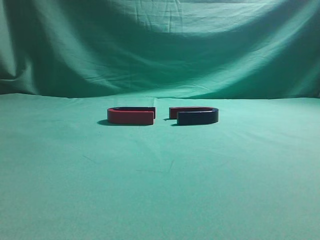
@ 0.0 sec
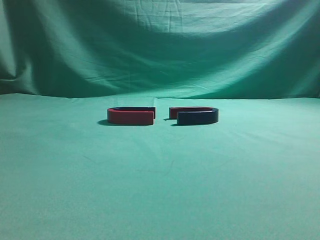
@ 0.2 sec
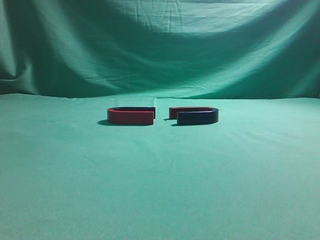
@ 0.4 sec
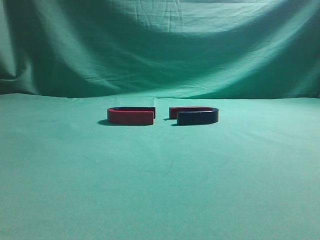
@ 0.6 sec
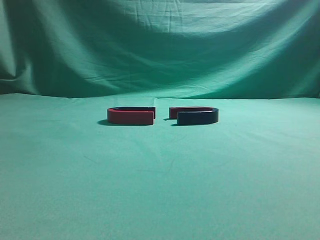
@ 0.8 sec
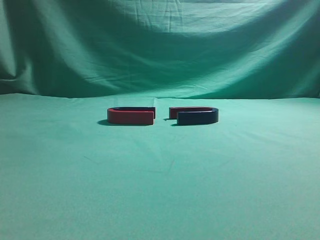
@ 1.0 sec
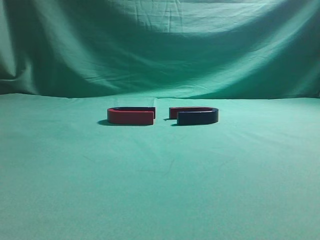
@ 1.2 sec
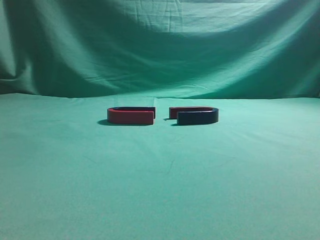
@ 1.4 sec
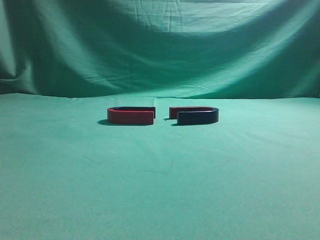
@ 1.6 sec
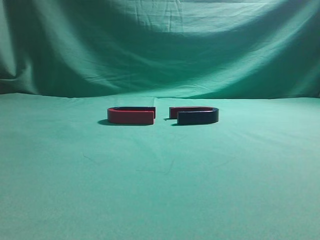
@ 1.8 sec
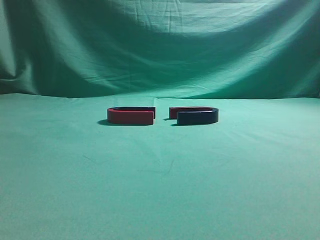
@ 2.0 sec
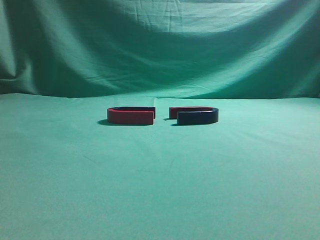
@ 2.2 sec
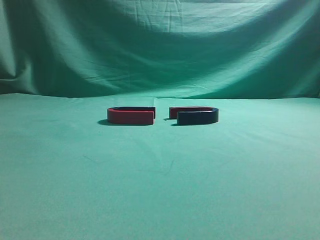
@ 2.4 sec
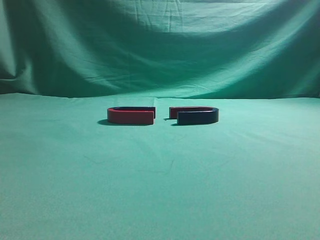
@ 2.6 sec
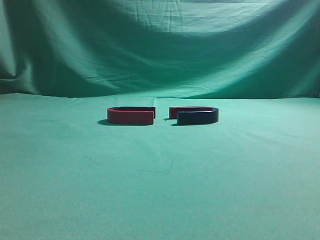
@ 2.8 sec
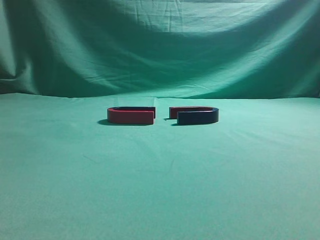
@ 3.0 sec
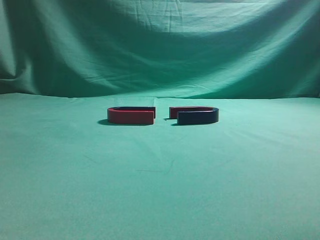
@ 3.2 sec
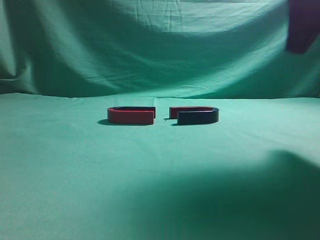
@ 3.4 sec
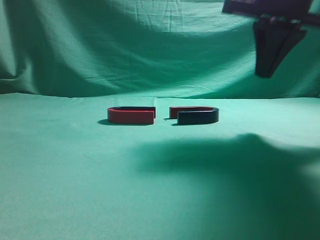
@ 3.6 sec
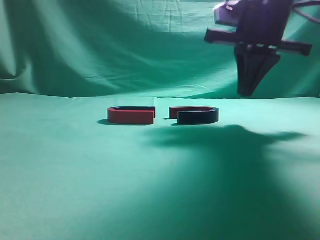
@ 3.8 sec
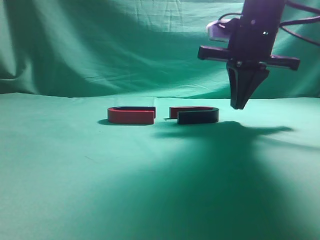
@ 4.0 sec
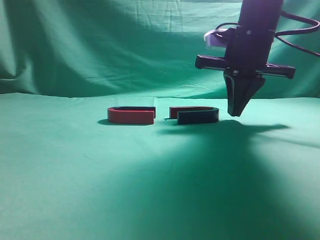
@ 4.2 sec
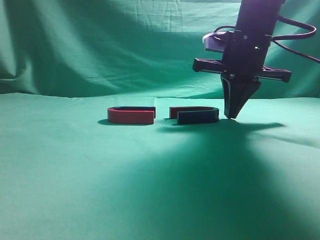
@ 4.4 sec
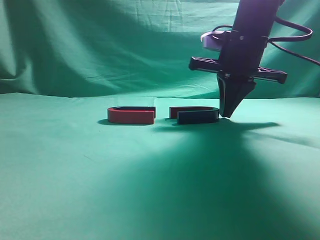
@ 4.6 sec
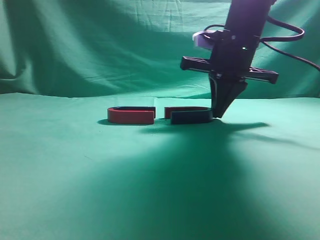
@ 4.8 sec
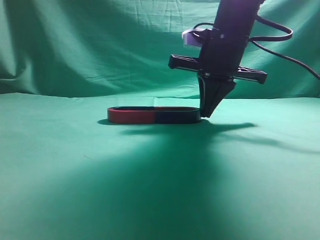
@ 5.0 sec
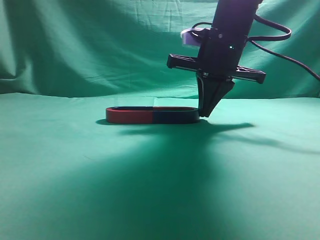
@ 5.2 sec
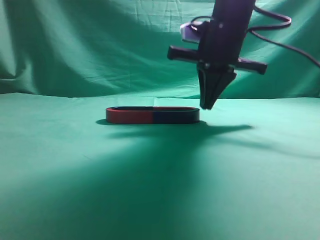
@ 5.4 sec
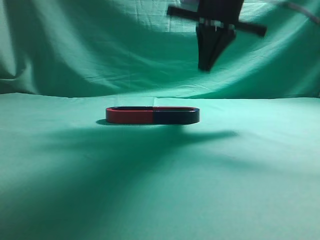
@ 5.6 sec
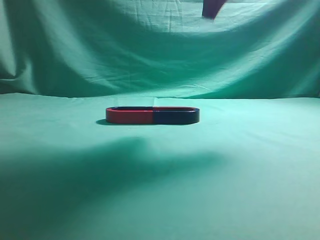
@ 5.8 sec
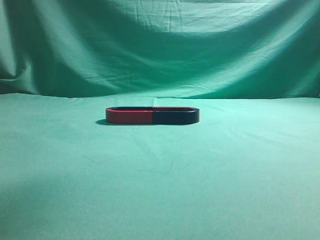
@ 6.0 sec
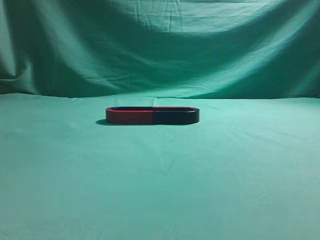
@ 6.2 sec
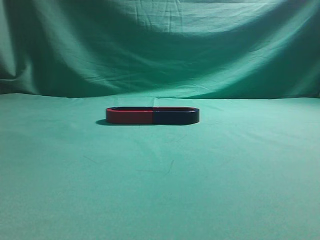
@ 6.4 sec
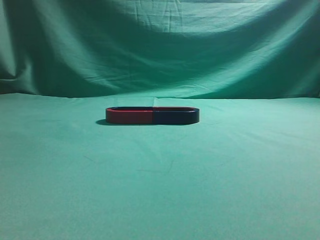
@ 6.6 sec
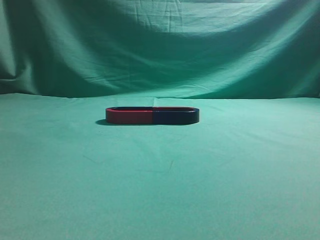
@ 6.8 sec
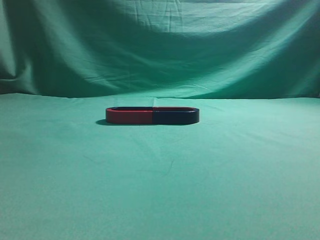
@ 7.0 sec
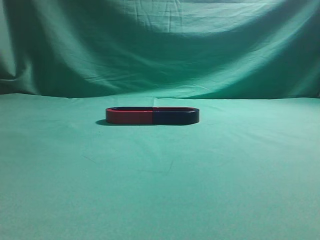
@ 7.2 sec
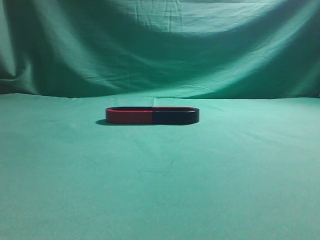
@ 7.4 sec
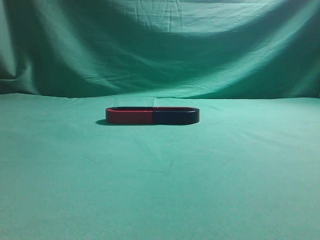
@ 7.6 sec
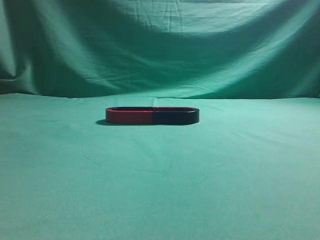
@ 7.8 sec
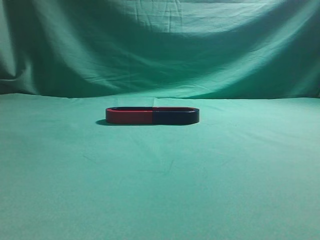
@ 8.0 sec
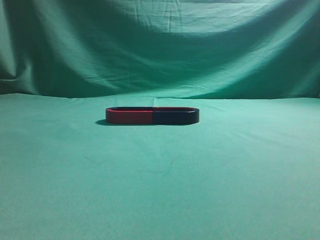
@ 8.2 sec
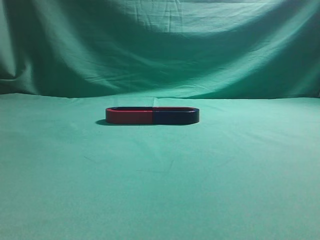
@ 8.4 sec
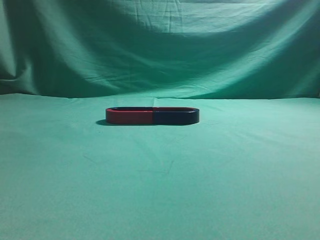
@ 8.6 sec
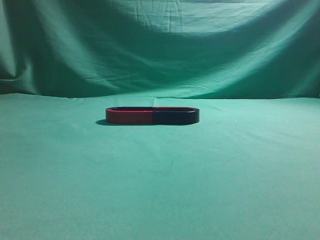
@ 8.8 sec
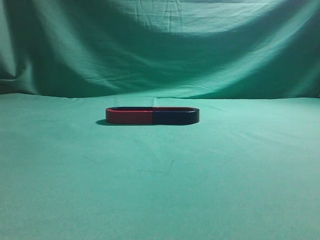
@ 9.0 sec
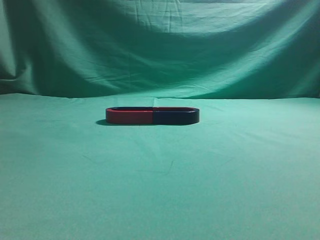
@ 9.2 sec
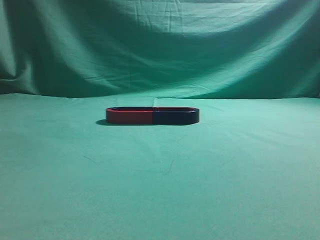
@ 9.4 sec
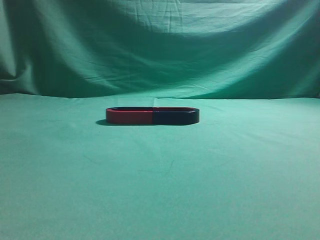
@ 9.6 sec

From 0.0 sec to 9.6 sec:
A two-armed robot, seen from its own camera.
Task of the whole recording: push the magnet on the table from its original position to another position.
Step, from 0.0 sec to 5.2 sec: Push the magnet on the right to connect the magnet on the left.
From 3.2 sec to 4.8 sec: The right gripper travels forward, downward and to the left by approximately 20 cm.
From 4.8 sec to 6.4 sec: The right gripper travels upward and backward by approximately 35 cm.
